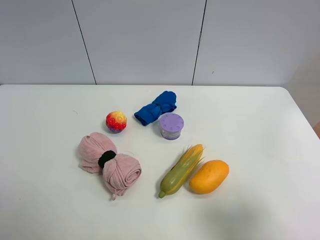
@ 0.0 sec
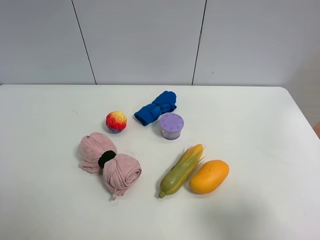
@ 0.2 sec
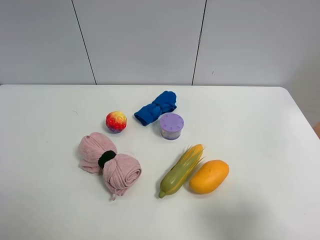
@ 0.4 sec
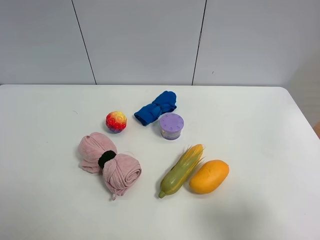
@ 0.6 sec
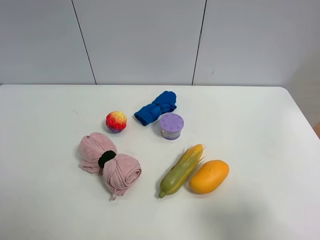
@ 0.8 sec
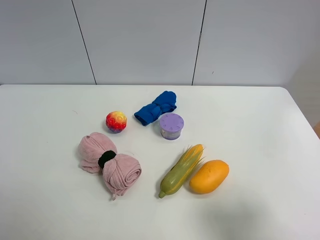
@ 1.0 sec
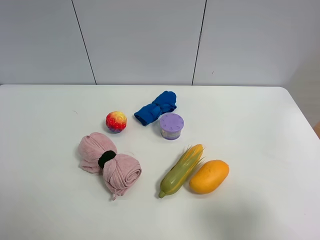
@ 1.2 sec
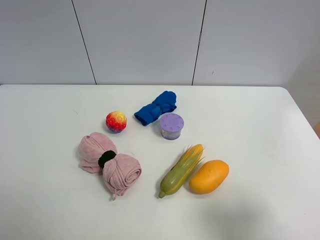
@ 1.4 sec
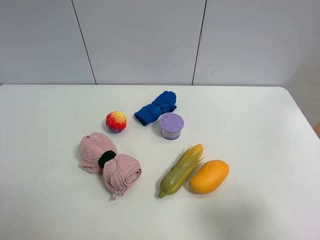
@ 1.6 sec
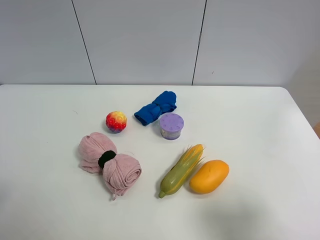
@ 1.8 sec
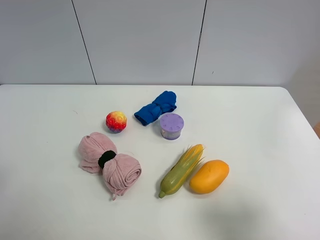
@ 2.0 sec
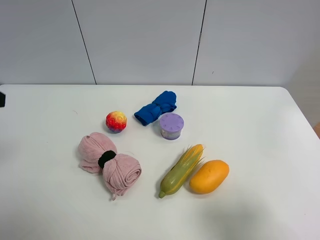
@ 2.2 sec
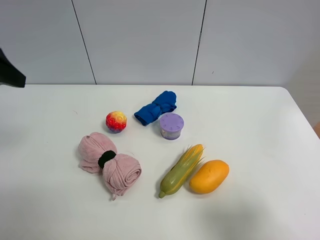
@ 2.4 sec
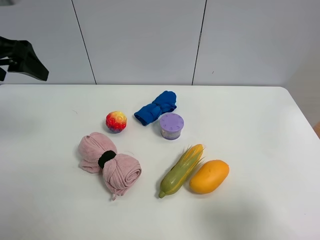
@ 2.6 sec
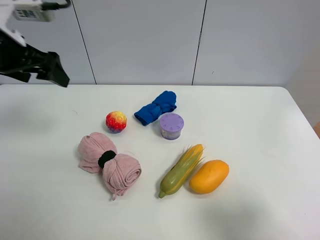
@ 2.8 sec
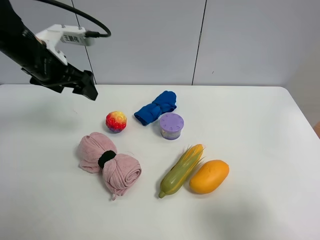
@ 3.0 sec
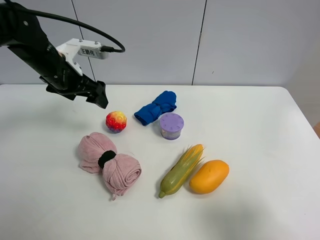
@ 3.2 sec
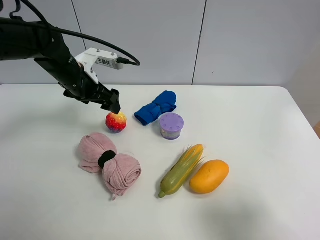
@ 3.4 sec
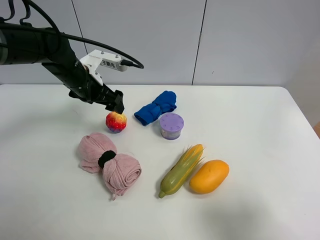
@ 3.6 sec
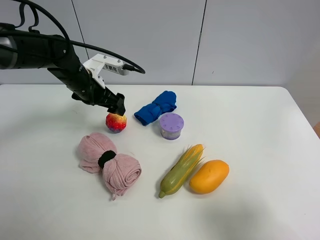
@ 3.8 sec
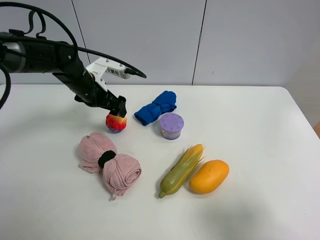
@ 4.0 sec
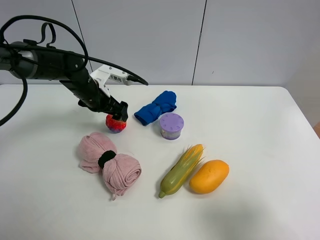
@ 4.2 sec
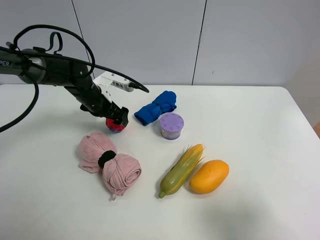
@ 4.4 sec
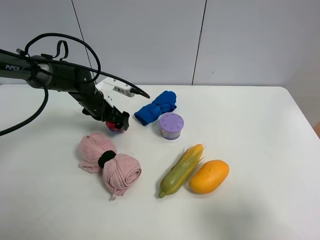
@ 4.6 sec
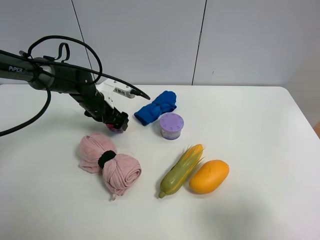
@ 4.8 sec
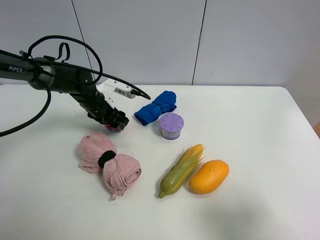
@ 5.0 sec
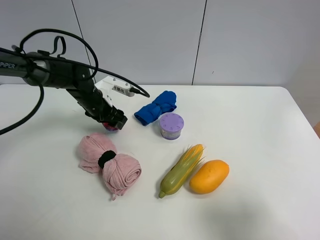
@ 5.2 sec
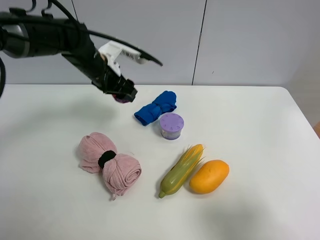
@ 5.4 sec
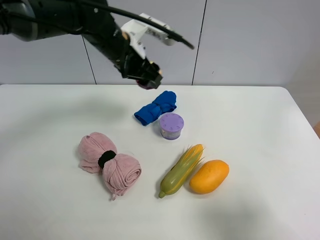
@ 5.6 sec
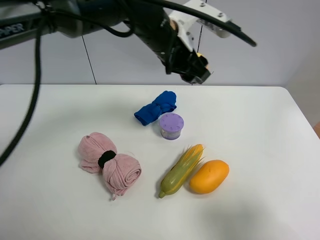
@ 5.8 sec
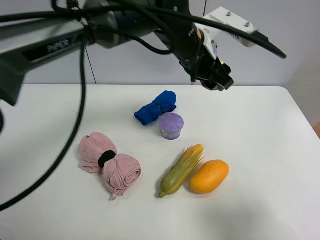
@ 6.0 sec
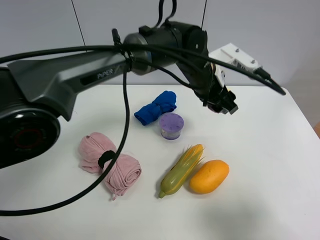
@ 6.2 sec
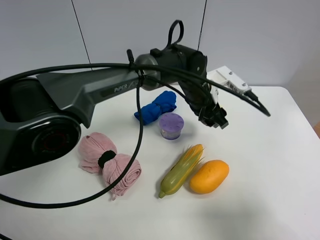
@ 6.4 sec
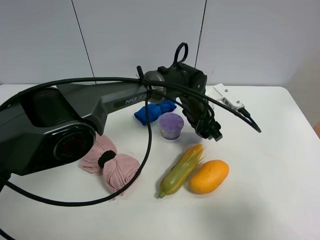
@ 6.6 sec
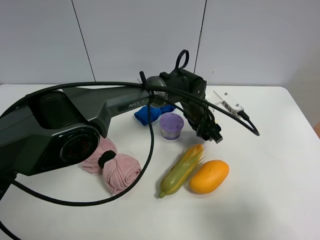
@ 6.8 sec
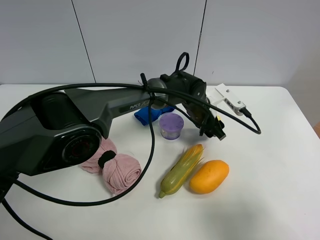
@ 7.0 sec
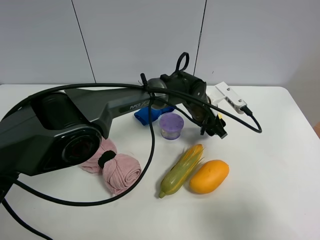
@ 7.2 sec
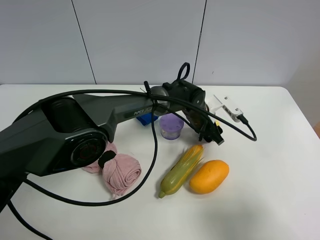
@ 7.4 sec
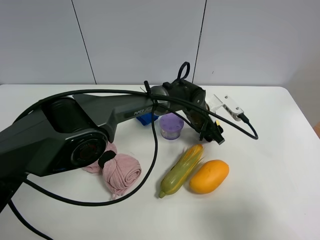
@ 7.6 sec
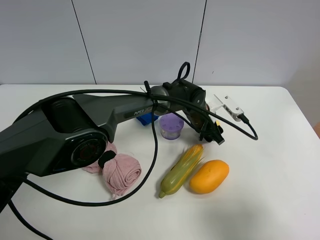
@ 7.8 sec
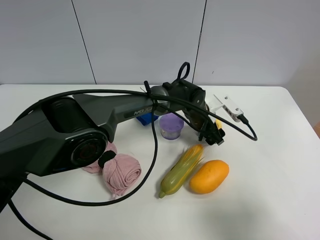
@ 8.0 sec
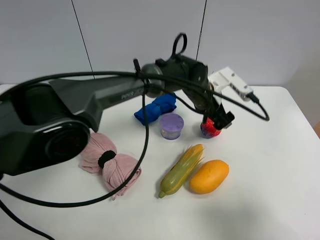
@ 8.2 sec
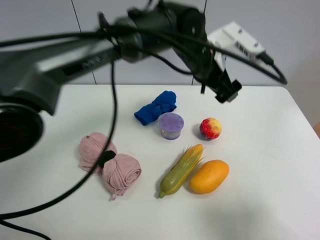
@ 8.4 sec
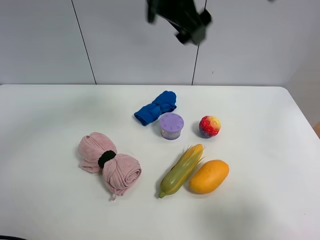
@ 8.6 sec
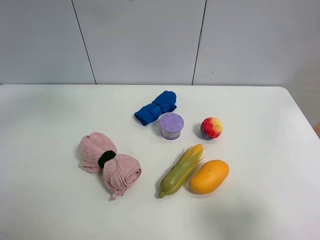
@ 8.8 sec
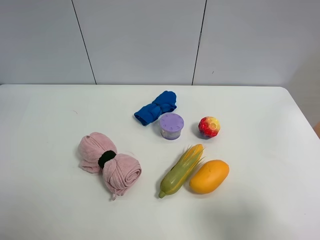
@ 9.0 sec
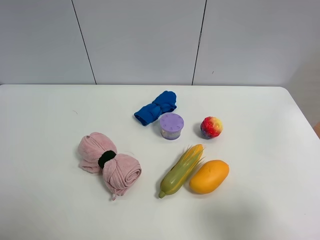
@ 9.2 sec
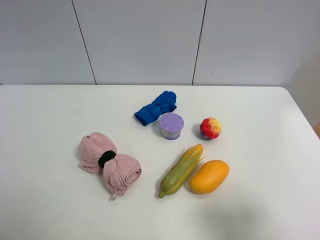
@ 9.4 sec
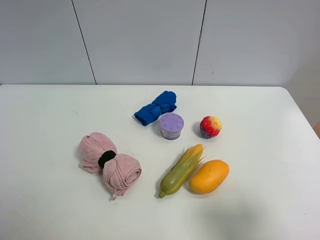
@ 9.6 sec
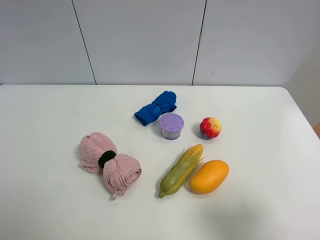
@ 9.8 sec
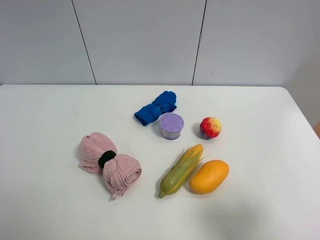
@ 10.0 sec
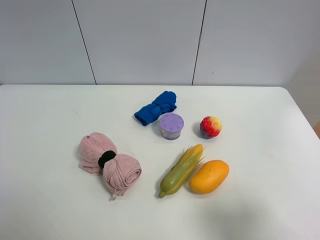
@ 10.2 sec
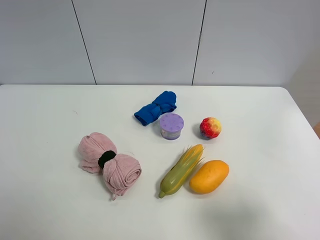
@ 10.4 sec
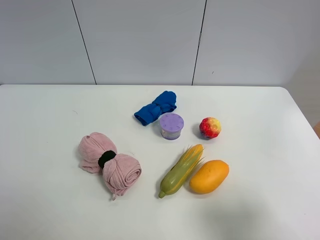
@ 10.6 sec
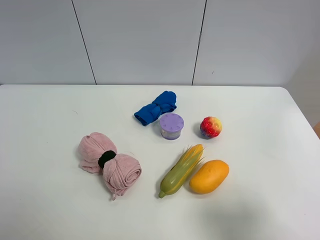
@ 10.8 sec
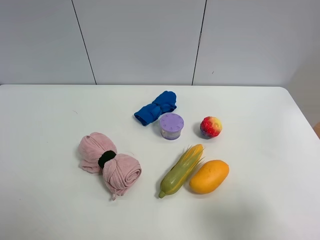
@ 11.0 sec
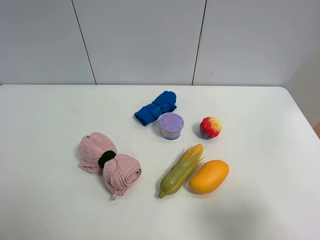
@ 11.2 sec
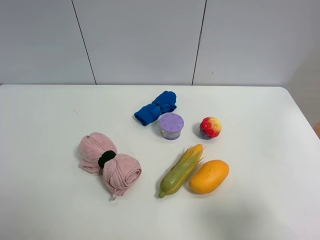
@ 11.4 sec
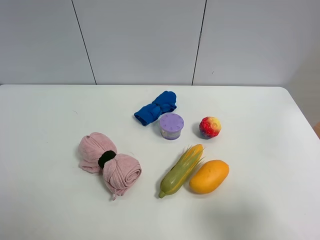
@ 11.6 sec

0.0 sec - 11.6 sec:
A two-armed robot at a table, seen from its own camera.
Task of the whole recording: the gripper move the object.
Step, 0.0 sec - 4.8 sec: Grasp the colorful ball with the left gripper.
Step, 5.0 sec - 8.0 sec: Place the colorful ball on the table with the left gripper.
0.0 sec - 1.4 sec: Neither gripper changes place.
1.4 sec - 2.8 sec: The left gripper travels forward by roughly 30 cm.
2.8 sec - 4.4 sec: The left gripper heads downward, to the right and forward, covering about 25 cm.
4.4 sec - 5.8 sec: The left gripper travels to the right and upward by some 25 cm, and closes up.
5.8 sec - 7.2 sec: The left gripper heads downward and to the right, covering approximately 20 cm.
7.2 sec - 8.8 sec: The left gripper heads upward and to the left, covering about 40 cm, and opens its fingers.
8.8 sec - 10.2 sec: The left gripper moves backward, to the left and downward, some 40 cm.

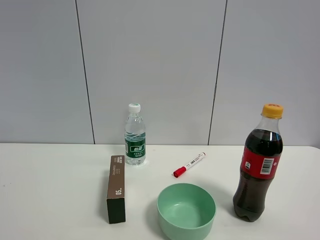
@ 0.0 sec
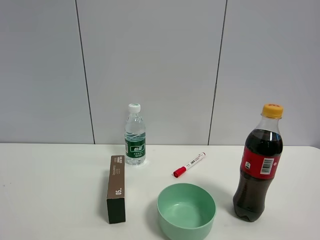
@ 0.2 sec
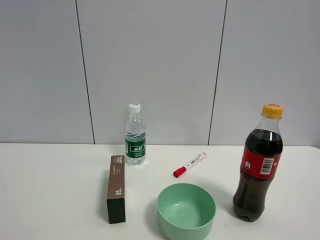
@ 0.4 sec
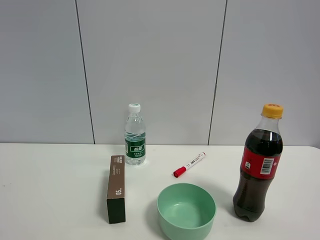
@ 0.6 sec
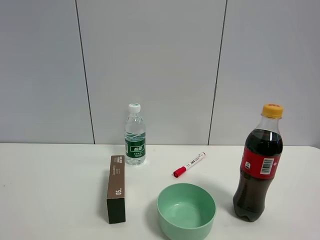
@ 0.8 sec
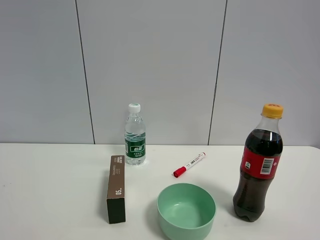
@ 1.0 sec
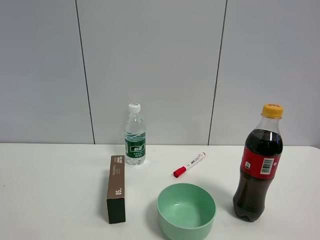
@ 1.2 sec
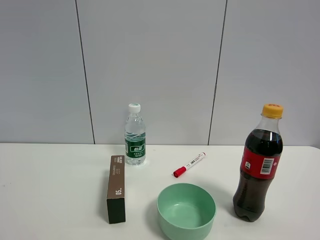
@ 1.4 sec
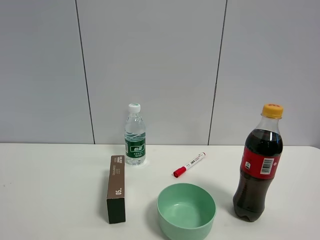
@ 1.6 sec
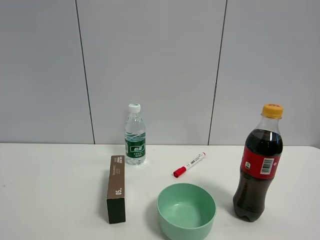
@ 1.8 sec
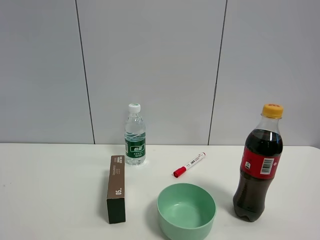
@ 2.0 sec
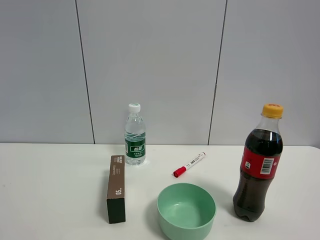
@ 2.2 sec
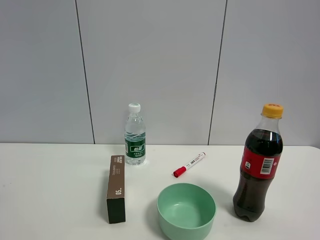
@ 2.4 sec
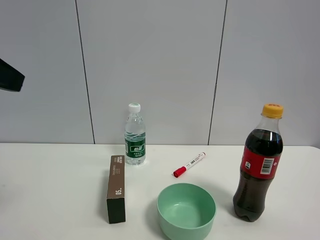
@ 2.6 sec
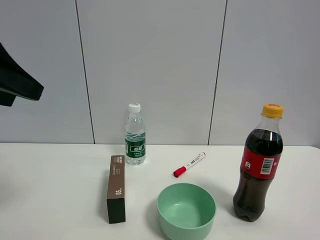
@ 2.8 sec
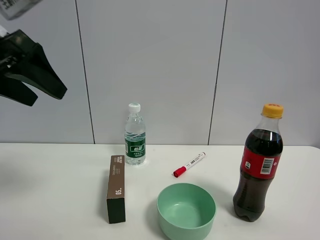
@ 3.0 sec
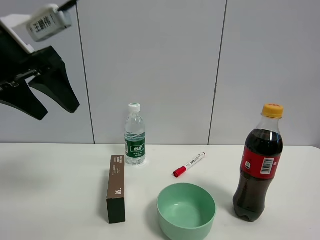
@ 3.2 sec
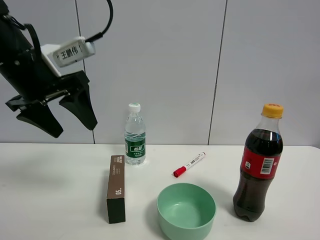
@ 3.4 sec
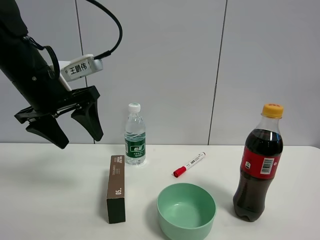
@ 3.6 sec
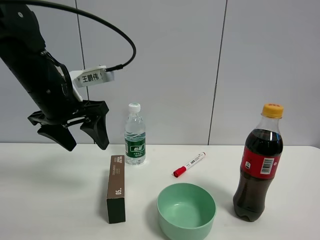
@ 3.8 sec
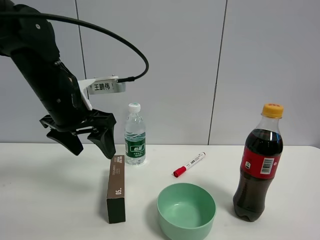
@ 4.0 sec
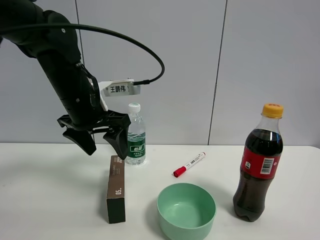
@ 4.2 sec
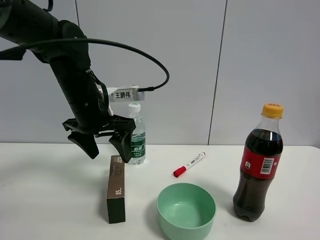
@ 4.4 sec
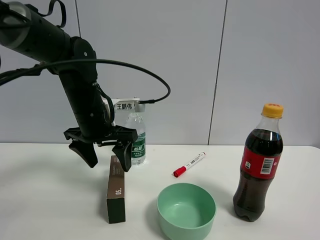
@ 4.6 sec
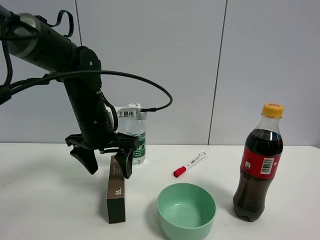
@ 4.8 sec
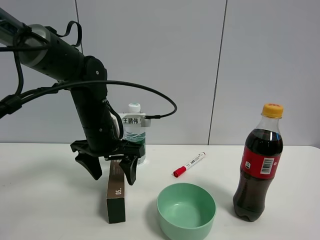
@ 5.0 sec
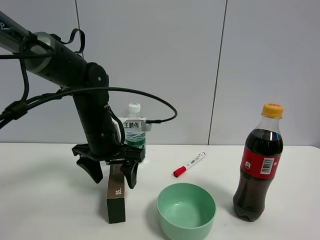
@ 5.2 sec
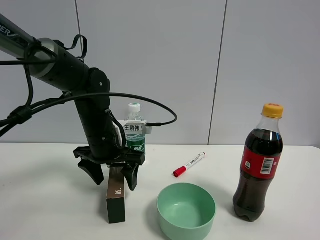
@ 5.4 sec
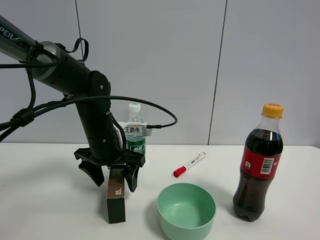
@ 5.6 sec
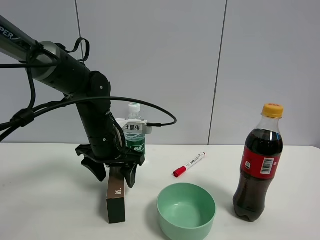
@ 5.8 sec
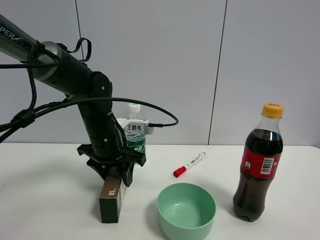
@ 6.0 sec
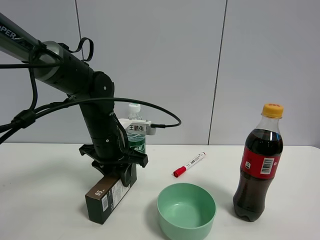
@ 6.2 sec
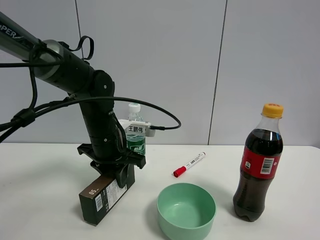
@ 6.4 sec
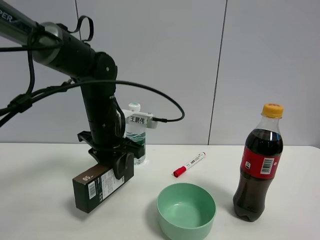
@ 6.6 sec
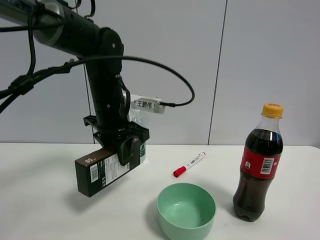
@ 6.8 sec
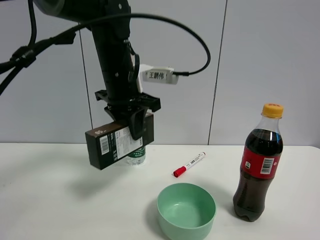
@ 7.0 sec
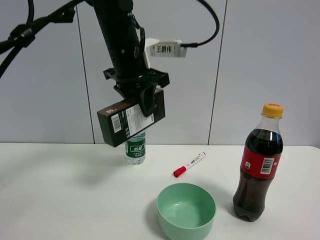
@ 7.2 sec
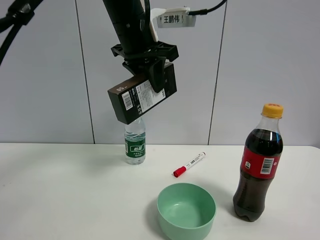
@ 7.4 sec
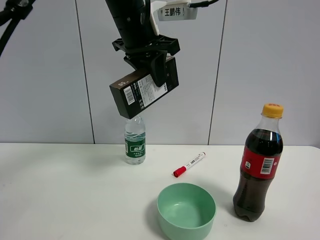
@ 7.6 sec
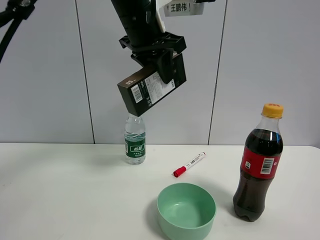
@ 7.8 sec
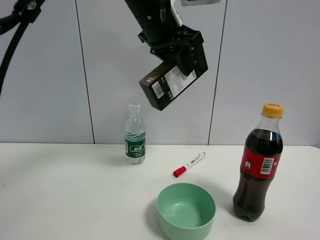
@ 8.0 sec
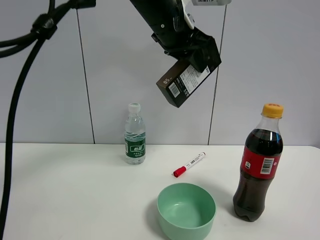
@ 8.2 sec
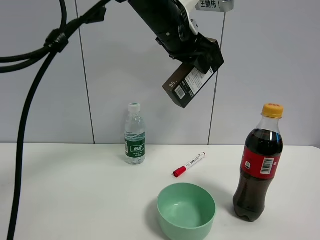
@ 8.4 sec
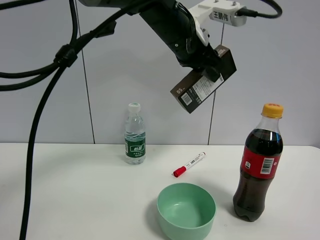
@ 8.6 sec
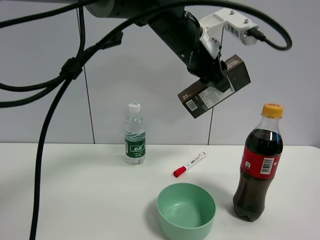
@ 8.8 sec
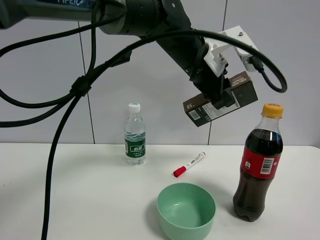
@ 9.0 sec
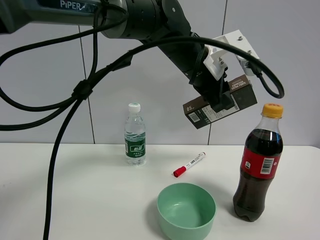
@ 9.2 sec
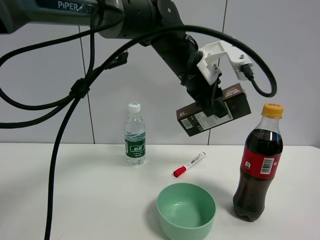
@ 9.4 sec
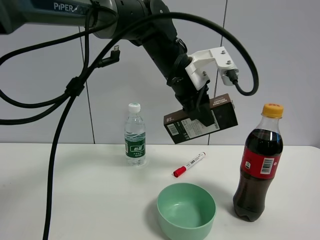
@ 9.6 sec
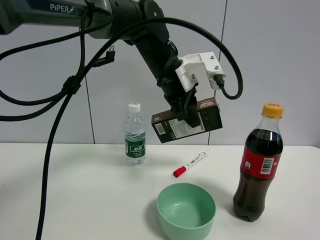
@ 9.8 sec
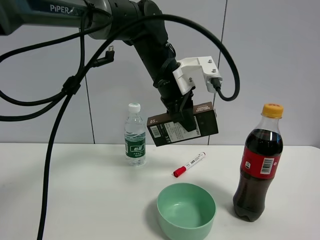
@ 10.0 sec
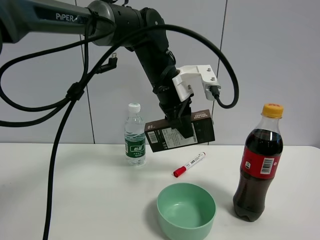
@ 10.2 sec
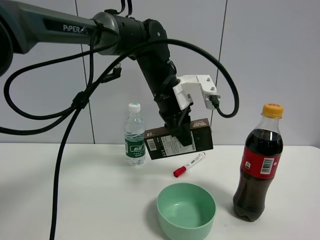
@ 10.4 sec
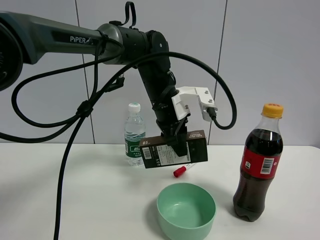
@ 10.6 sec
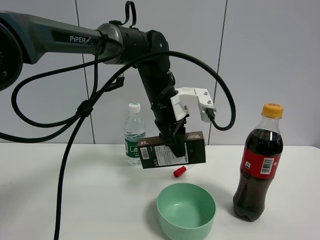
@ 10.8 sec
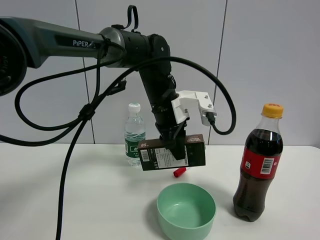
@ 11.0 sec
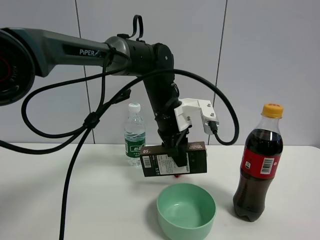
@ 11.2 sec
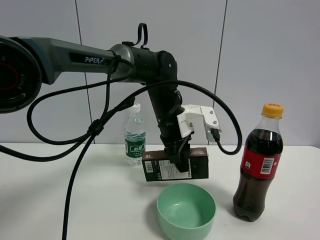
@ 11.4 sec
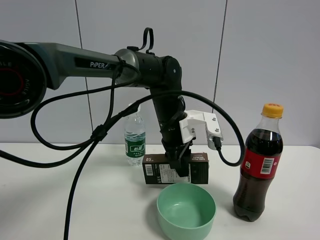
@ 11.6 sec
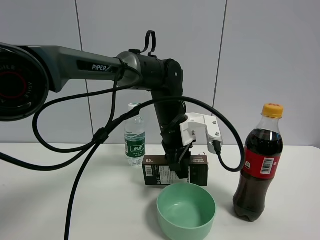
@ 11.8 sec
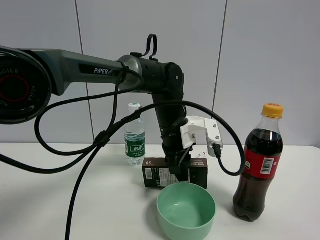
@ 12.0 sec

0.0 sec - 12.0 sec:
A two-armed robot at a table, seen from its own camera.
Task of the whole recording: the gripper move the object.
Step, 0.0 sec - 6.0 sec: Grasp the black box with the left gripper.
0.0 sec - 1.6 sec: Both grippers stay put.
1.6 sec - 3.0 sec: The left gripper travels forward by roughly 25 cm.
3.0 sec - 4.4 sec: The left gripper shifts approximately 20 cm to the right, downward and forward.
4.4 sec - 6.0 sec: The left gripper travels downward by approximately 10 cm, and closes up.
6.0 sec - 7.6 sec: The left gripper moves upward, approximately 20 cm, and closes its fingers.
7.6 sec - 9.0 sec: The left gripper goes approximately 15 cm to the right and downward.
9.0 sec - 10.4 sec: The left gripper moves downward, some 5 cm.
10.4 sec - 12.0 sec: The left gripper is displaced downward by some 5 cm.
